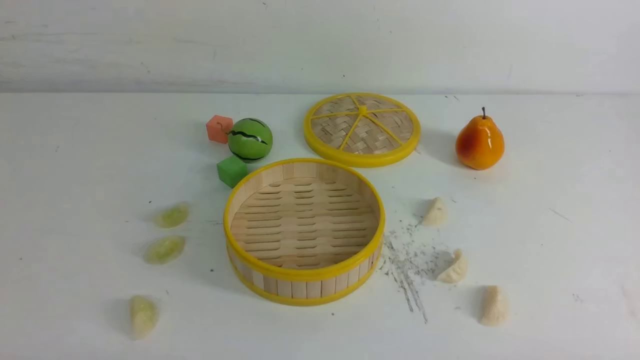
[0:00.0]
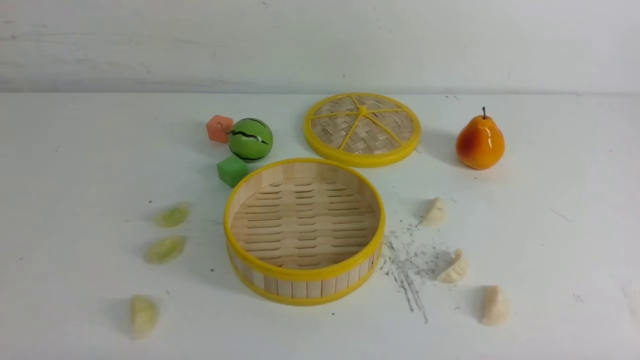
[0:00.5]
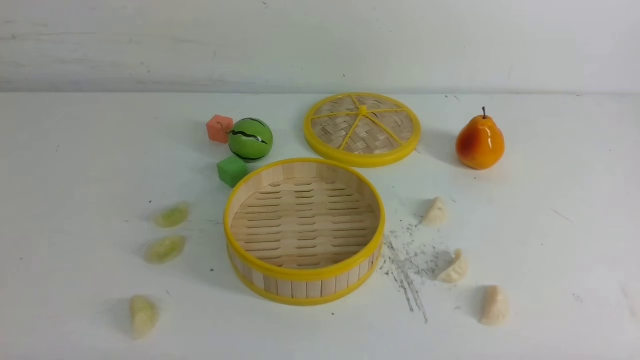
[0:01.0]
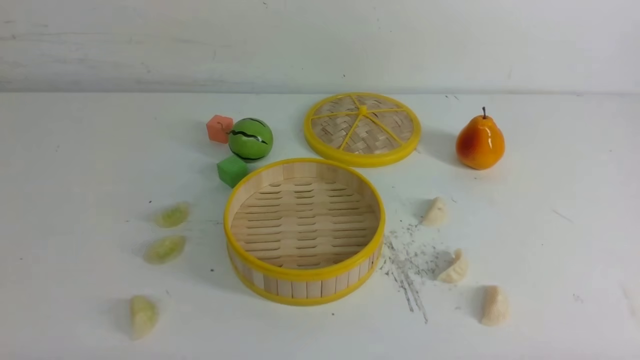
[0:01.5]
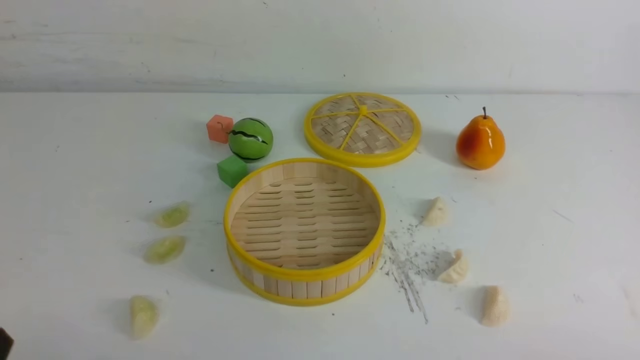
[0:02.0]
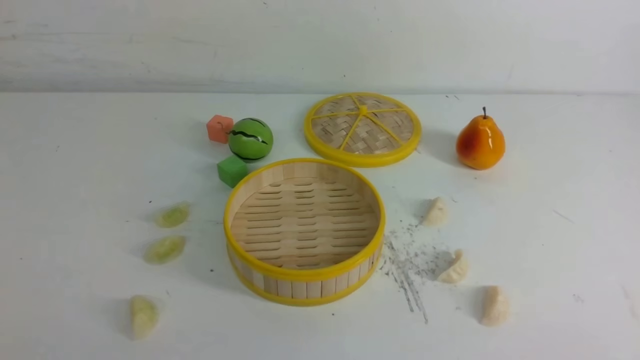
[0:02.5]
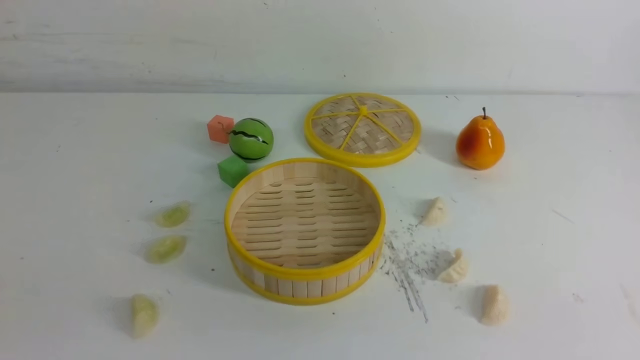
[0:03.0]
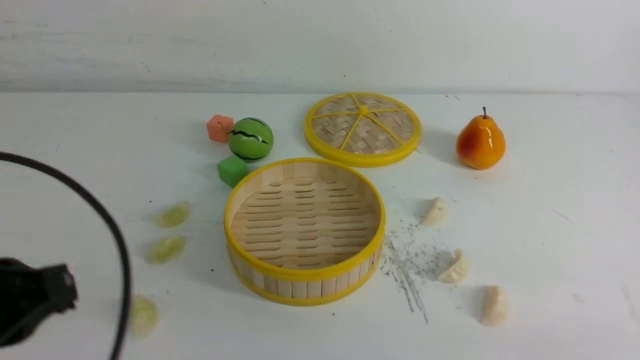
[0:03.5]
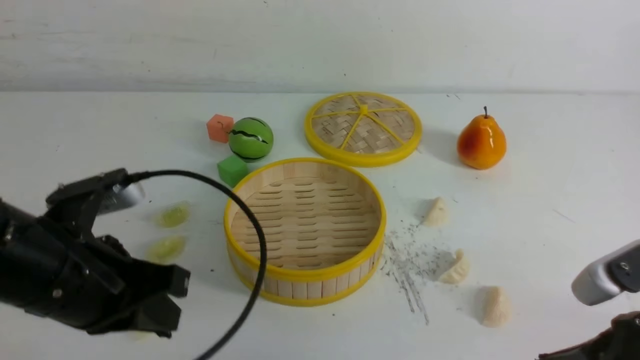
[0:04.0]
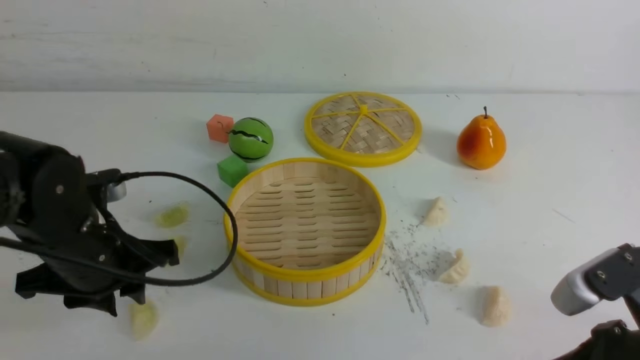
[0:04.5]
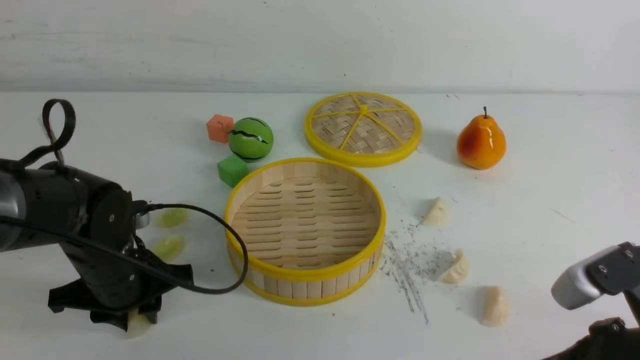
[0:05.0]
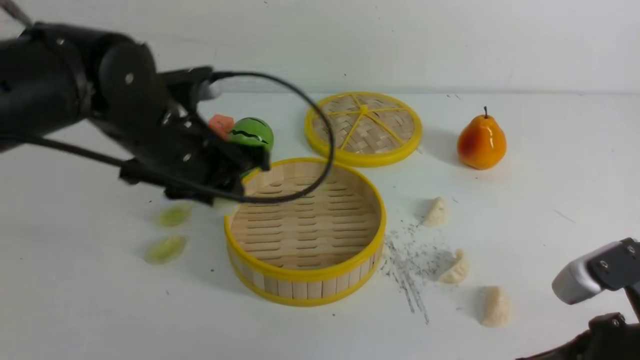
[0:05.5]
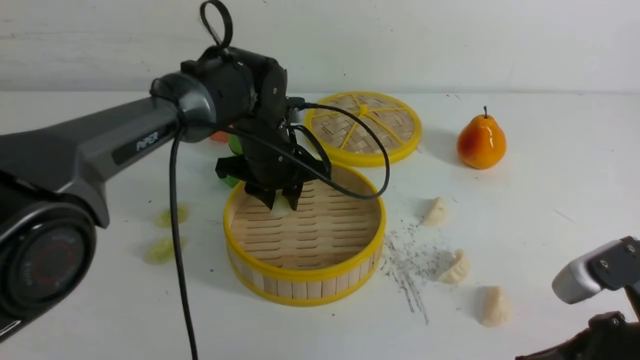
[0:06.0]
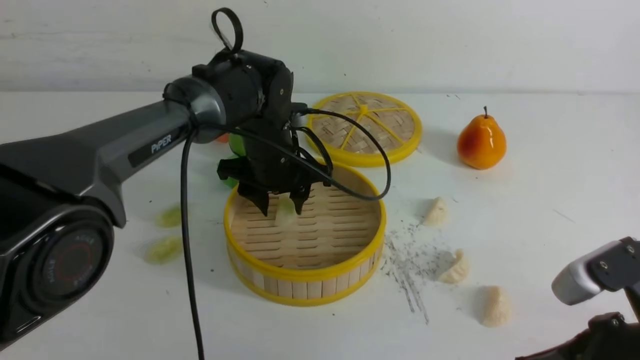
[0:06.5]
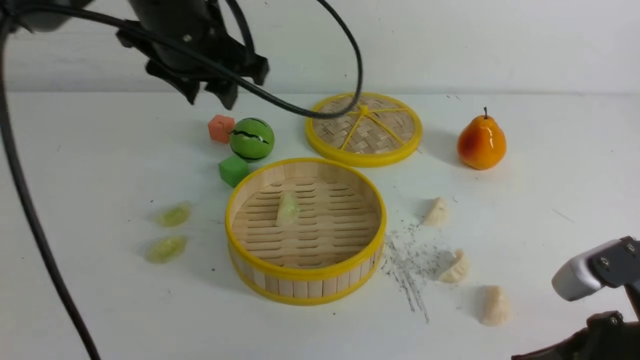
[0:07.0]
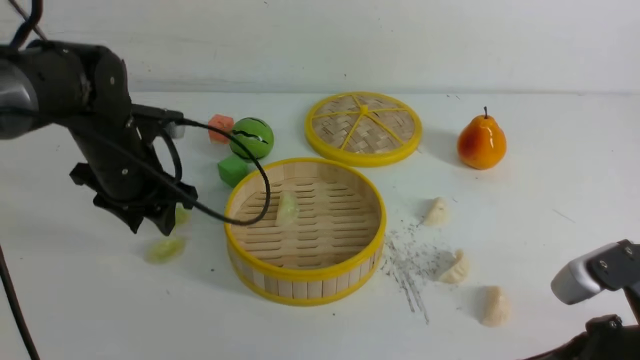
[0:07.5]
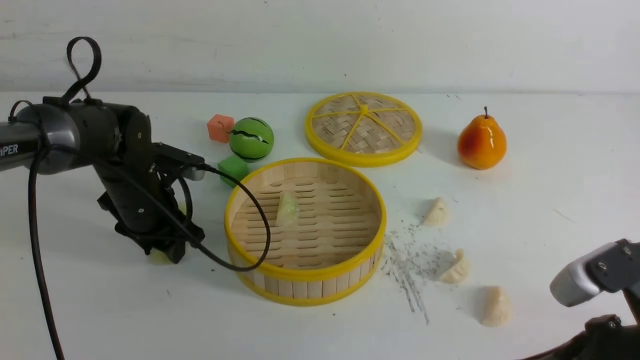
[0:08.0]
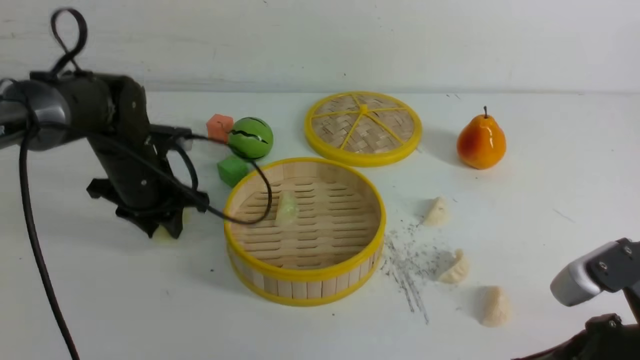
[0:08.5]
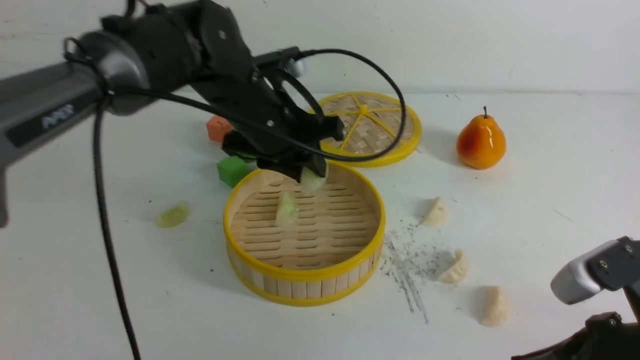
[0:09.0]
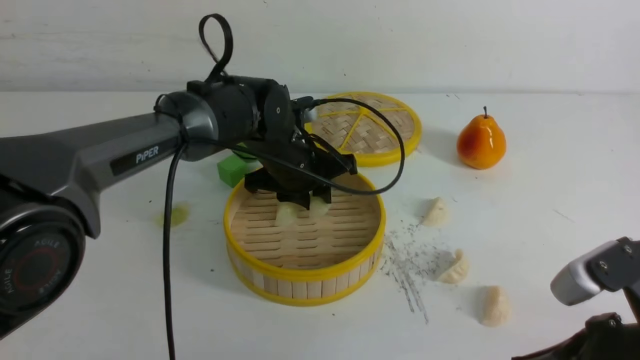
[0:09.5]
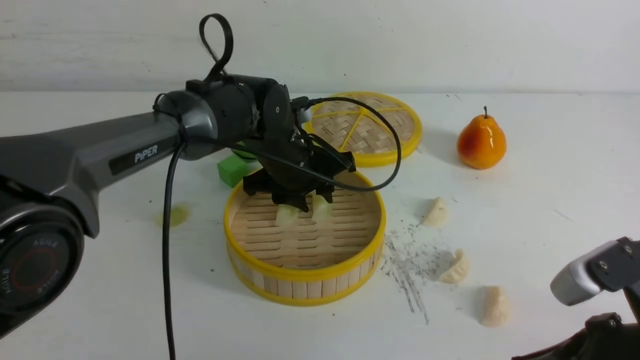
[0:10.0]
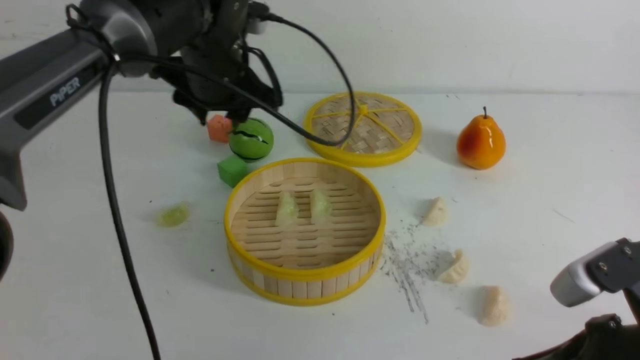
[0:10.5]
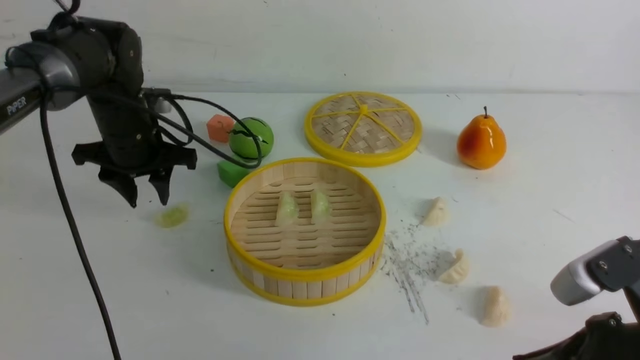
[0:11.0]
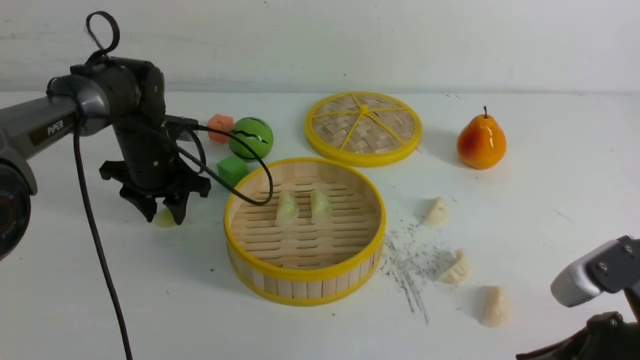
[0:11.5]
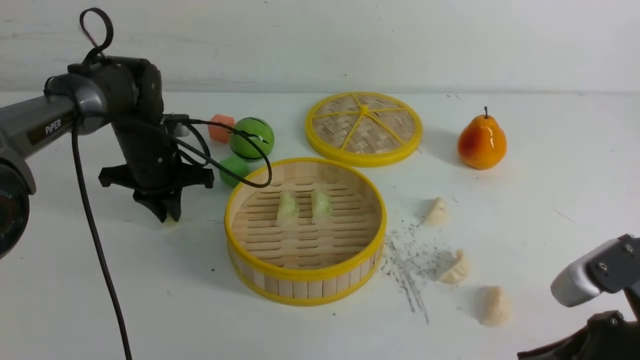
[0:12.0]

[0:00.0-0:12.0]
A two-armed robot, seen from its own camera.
Task of the whole recording: put the dumplings into the steamer on the white table.
Step, 0:00.0 to 0:05.0: use the left arm to grab a dumpling.
Step, 0:05.5 to 0:06.0: use the left arm to put the dumpling into the steamer.
Step, 0:07.0 to 0:08.0: use the left arm to grab a dumpling.
Step, 0:08.5 to 0:10.0: use the left arm to put the dumpling into the steamer.
0:02.0 to 0:04.0: The right gripper heads forward and to the left, covering some 10 cm, and moves approximately 15 cm upward and comes back; the left gripper goes some 20 cm forward, upward and to the right, and closes up.
0:04.0 to 0:06.0: The left gripper goes some 25 cm forward and to the right, and opens.
0:06.0 to 0:08.0: The left gripper heads to the left, covering approximately 15 cm, and moves about 10 cm upward and comes back.
0:08.0 to 0:10.0: The left gripper shifts approximately 15 cm to the right.
0:10.0 to 0:12.0: The left gripper is displaced to the left by some 15 cm, and closes up.

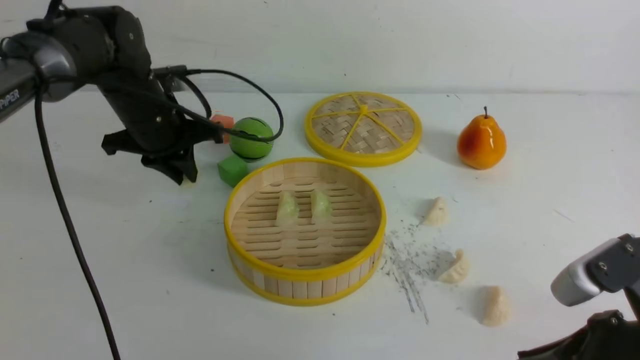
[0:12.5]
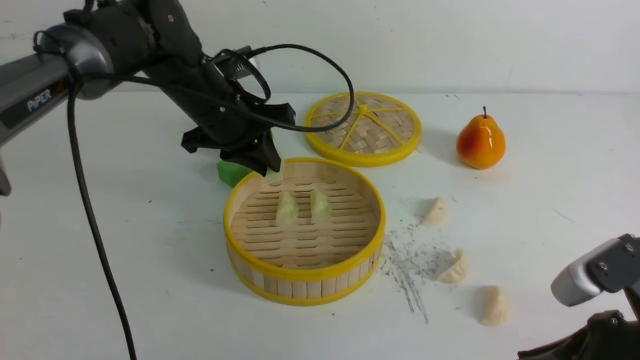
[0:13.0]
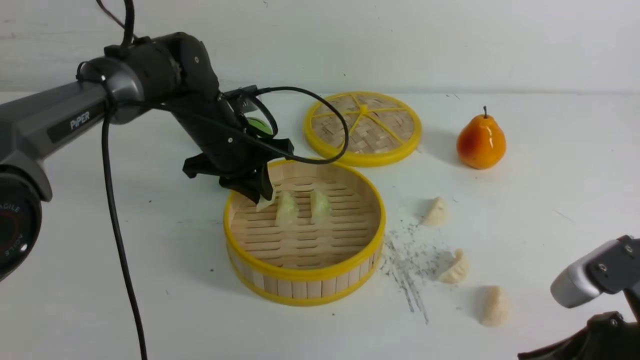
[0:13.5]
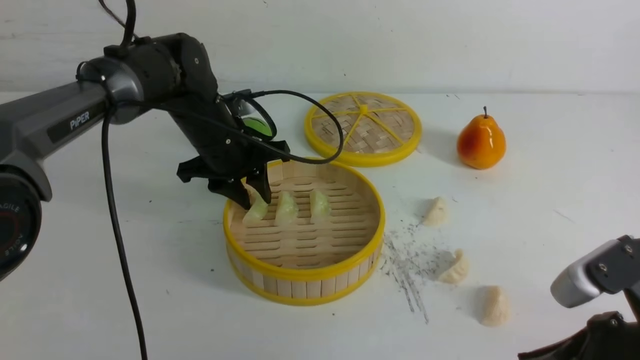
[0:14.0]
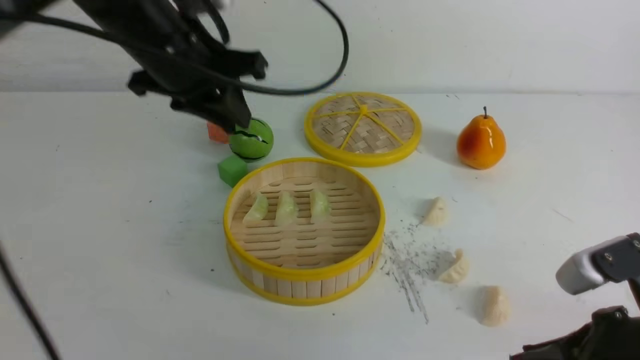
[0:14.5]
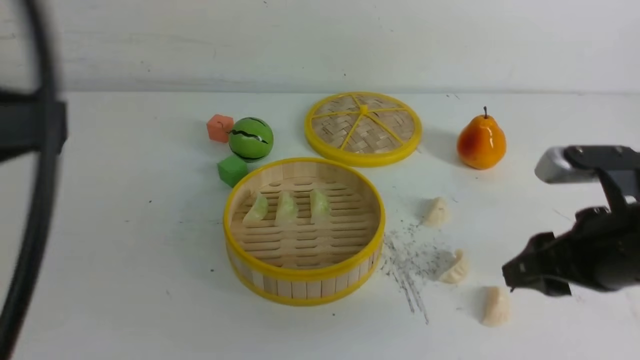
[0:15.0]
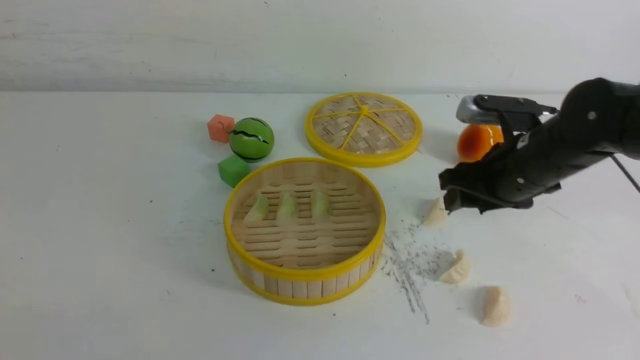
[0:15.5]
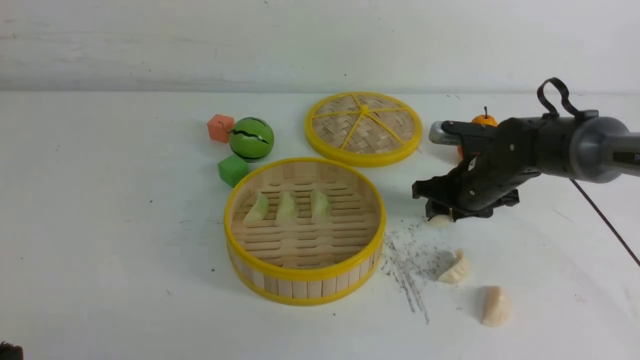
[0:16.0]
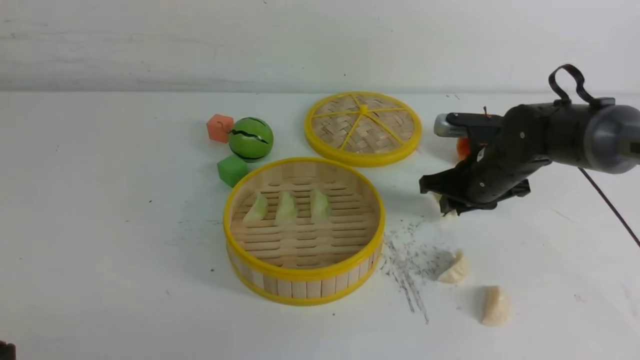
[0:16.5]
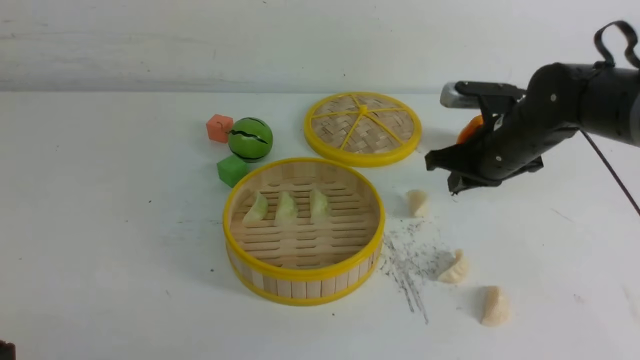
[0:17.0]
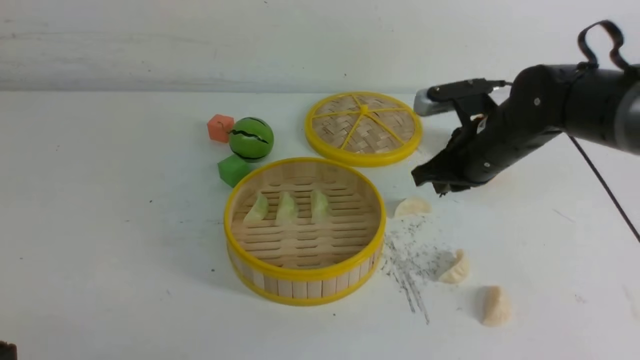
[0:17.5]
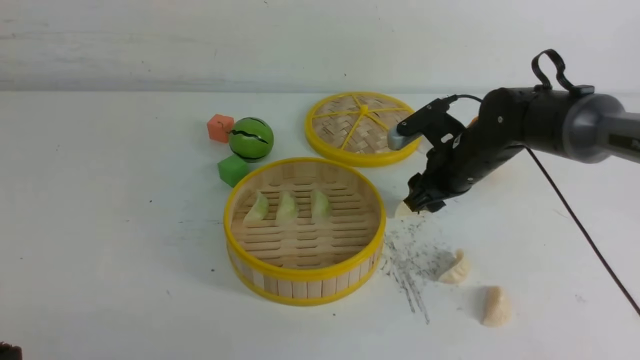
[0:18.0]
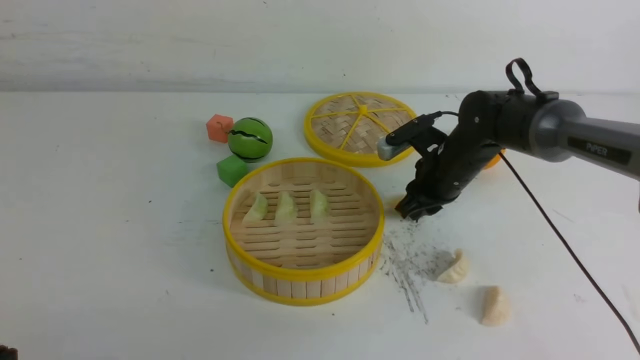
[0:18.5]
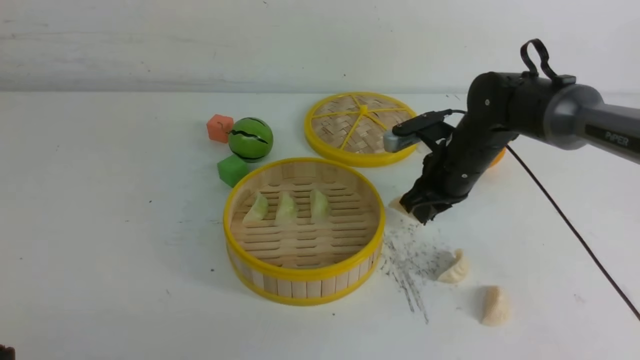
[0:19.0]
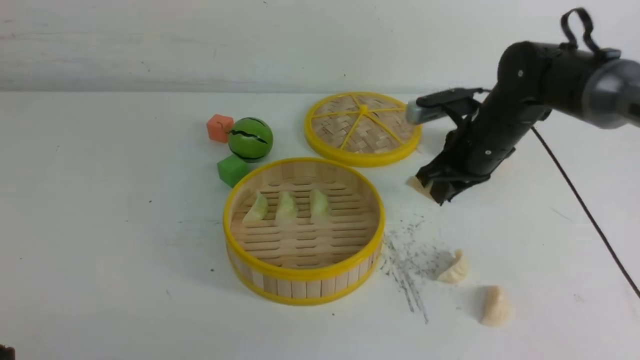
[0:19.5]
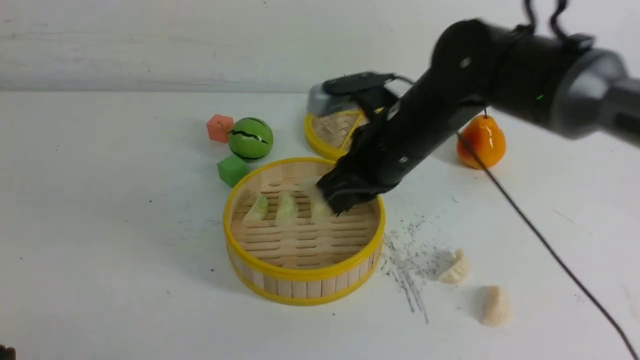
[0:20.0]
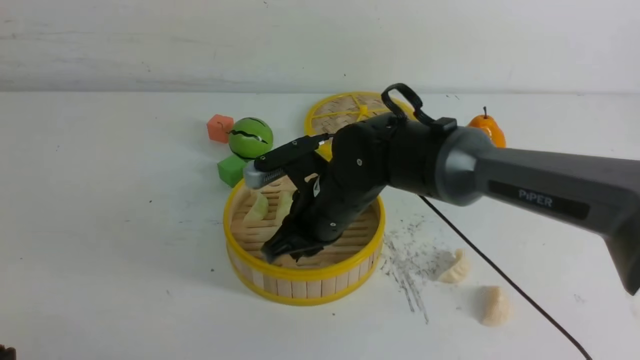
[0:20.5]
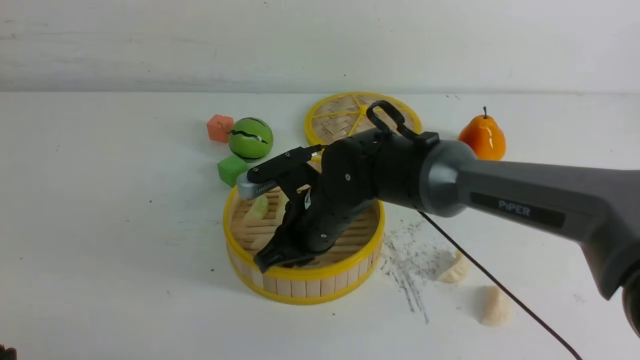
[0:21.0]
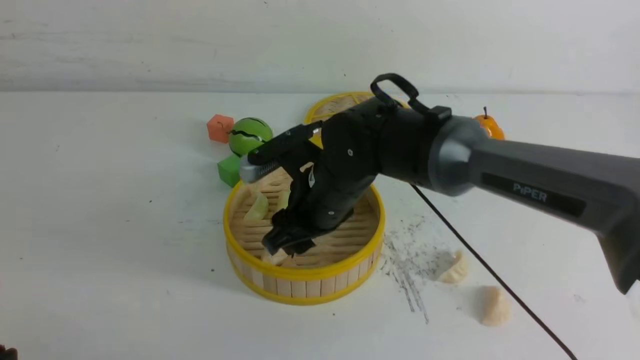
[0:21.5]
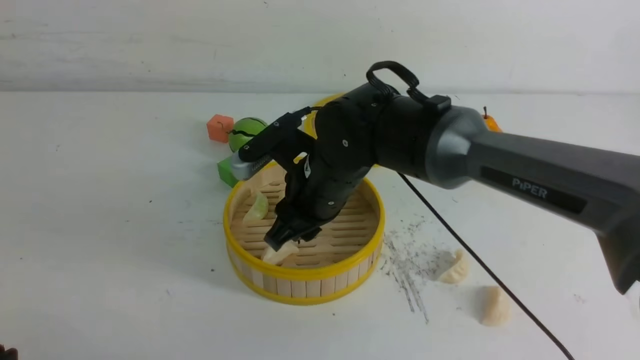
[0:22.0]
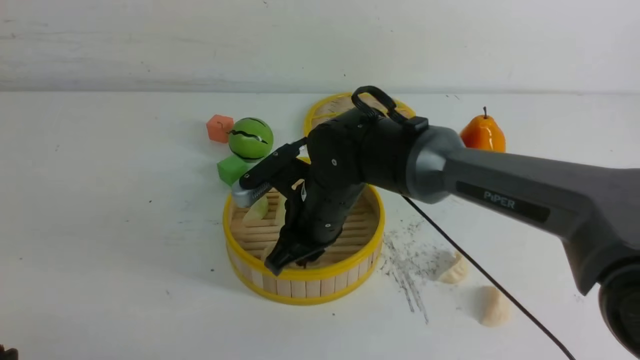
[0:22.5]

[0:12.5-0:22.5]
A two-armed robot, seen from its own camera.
Task of the whole recording: put the dumplings into the steamer on the white table.
Step, 0:12.5 to 0:14.0: use the left arm to put the dumpling into the steamer.
Step, 0:14.5 to 0:19.0: use the right arm to grab a dumpling.
Step, 0:19.5 to 0:21.5: use the right arm to put the dumpling into the steamer.
0:12.5 to 0:14.5: The left gripper shifts approximately 15 cm upward and backward.
0:14.5 to 0:16.5: The left gripper moves backward and downward, some 35 cm, and closes; the right gripper moves forward, some 25 cm, and opens, then closes again.
0:16.5 to 0:18.5: The right gripper moves approximately 5 cm upward and comes back, and opens, then closes once more.
0:18.5 to 0:20.5: The right gripper travels to the left and backward by approximately 20 cm.
0:20.5 to 0:22.5: The right gripper opens and closes again.
